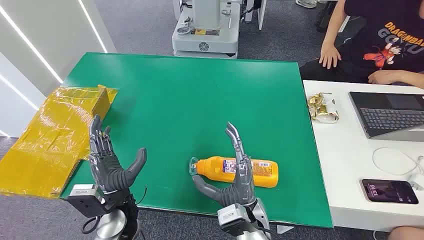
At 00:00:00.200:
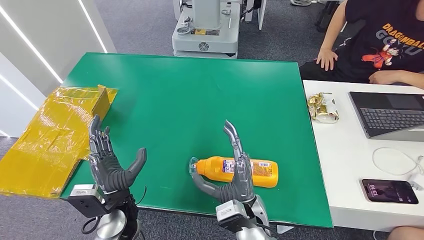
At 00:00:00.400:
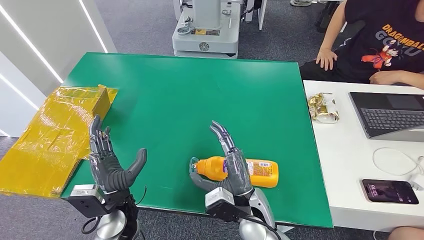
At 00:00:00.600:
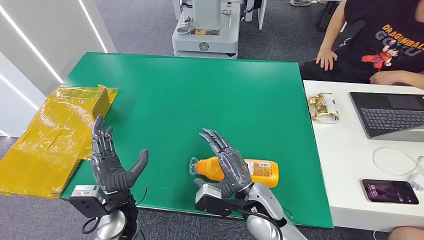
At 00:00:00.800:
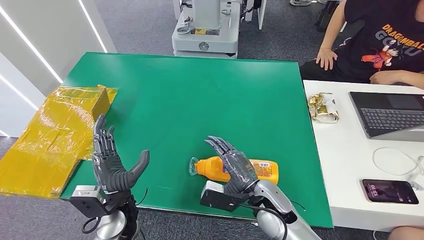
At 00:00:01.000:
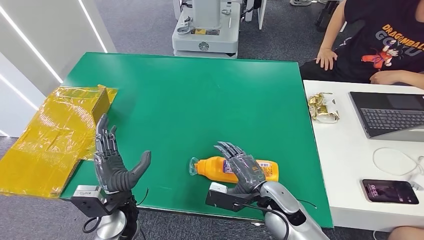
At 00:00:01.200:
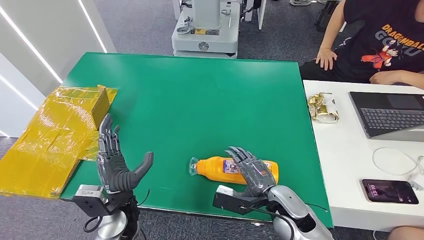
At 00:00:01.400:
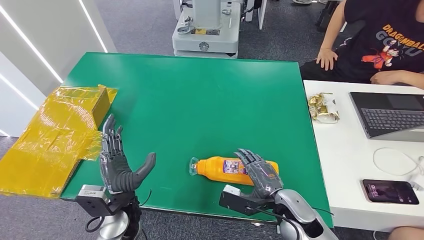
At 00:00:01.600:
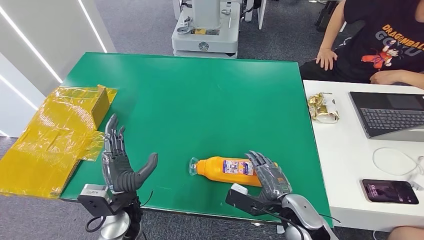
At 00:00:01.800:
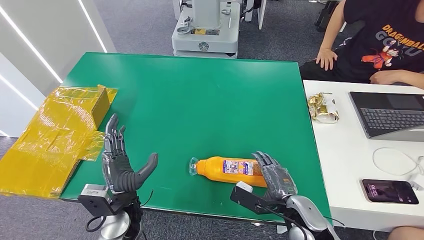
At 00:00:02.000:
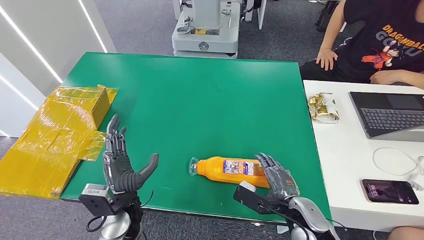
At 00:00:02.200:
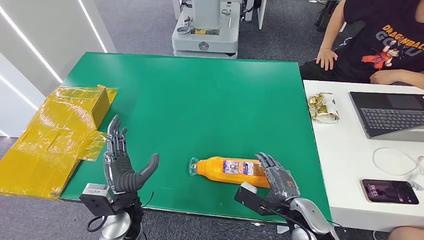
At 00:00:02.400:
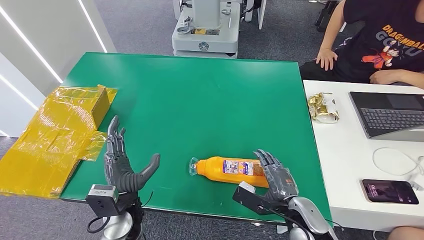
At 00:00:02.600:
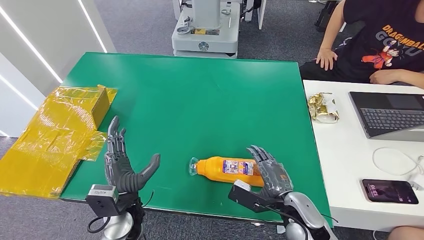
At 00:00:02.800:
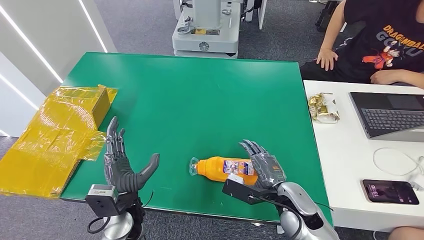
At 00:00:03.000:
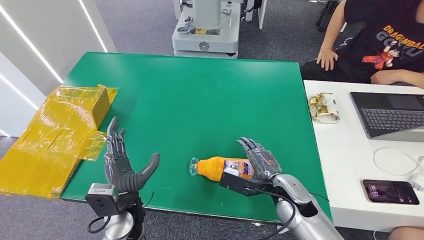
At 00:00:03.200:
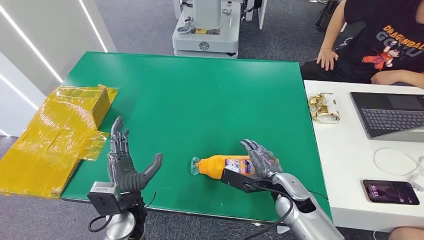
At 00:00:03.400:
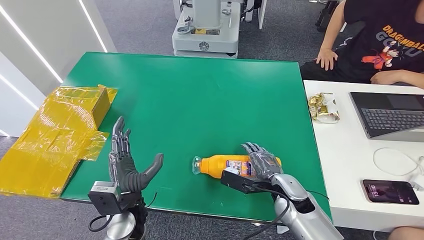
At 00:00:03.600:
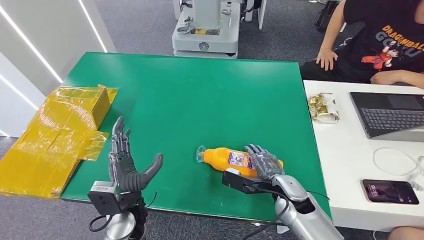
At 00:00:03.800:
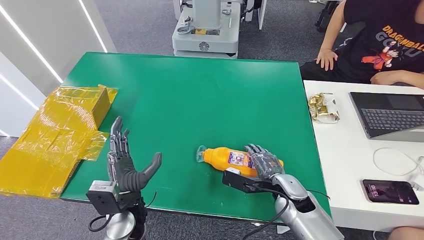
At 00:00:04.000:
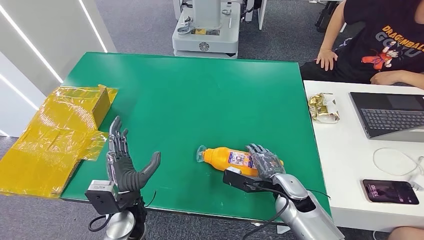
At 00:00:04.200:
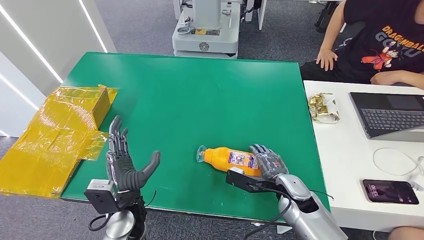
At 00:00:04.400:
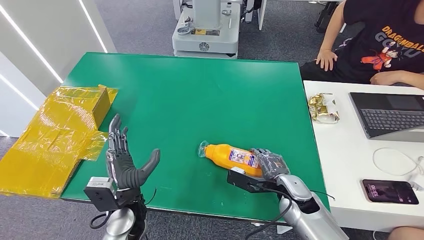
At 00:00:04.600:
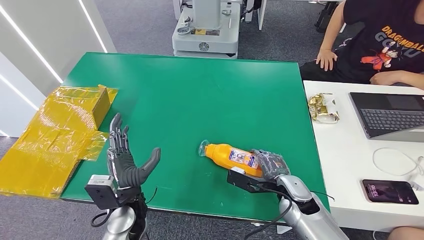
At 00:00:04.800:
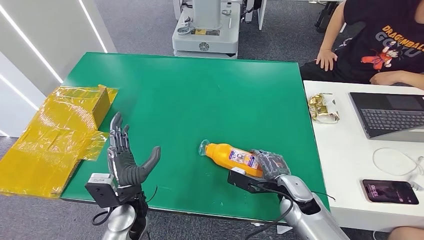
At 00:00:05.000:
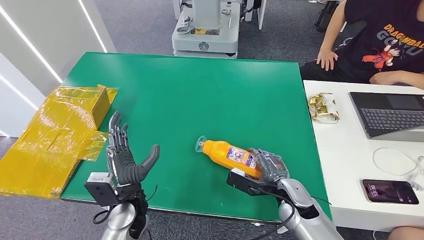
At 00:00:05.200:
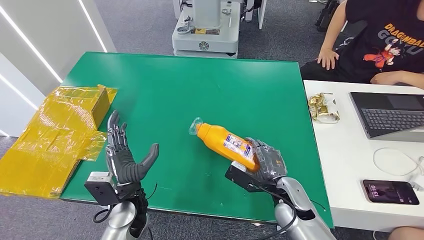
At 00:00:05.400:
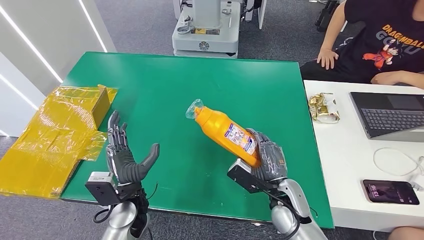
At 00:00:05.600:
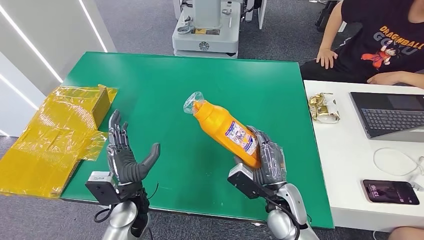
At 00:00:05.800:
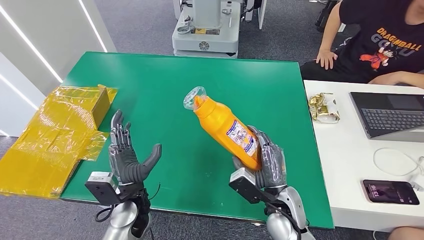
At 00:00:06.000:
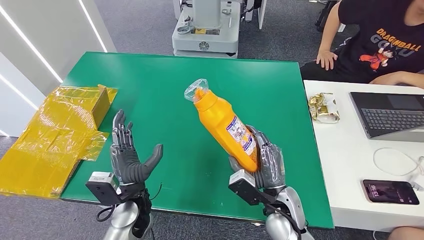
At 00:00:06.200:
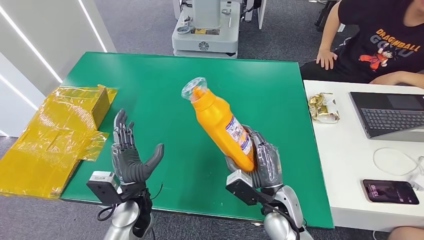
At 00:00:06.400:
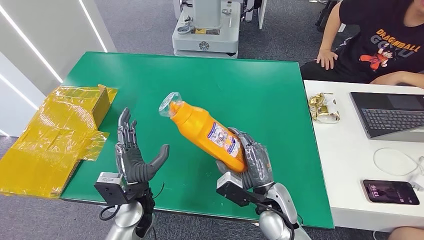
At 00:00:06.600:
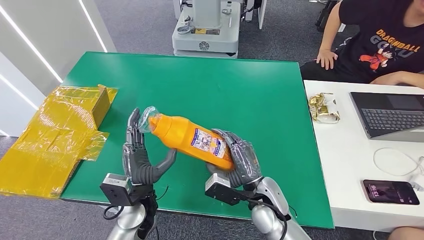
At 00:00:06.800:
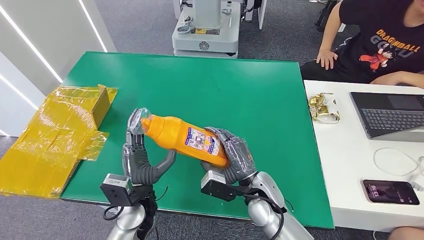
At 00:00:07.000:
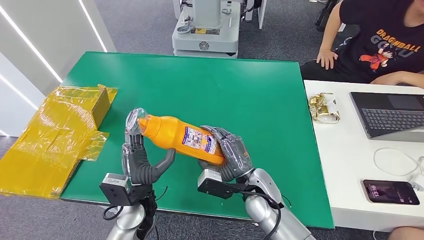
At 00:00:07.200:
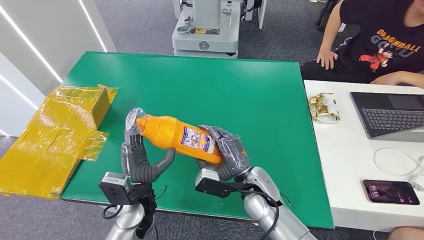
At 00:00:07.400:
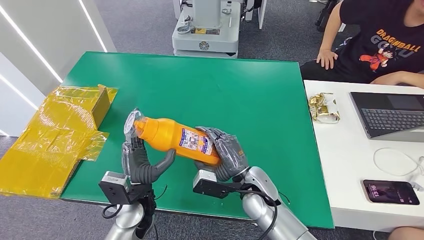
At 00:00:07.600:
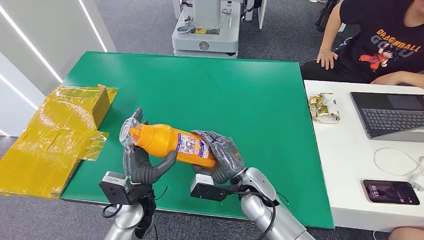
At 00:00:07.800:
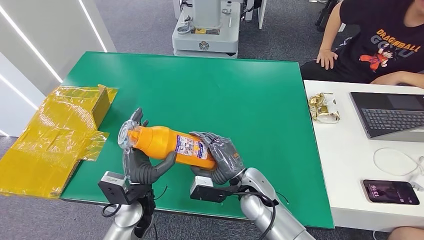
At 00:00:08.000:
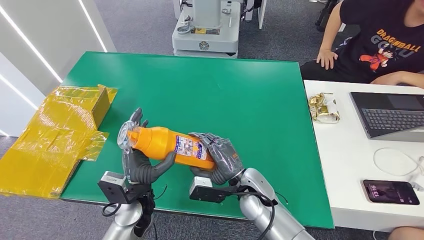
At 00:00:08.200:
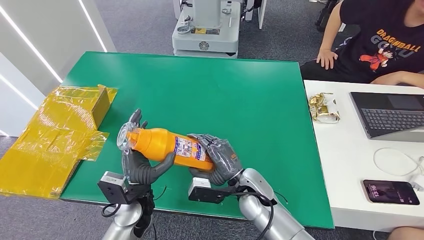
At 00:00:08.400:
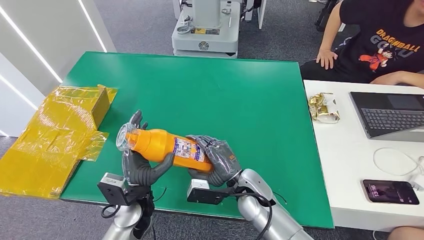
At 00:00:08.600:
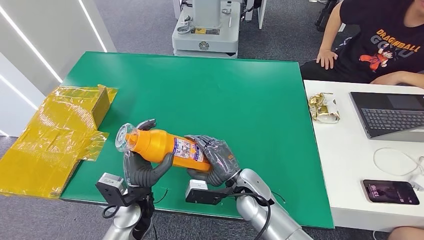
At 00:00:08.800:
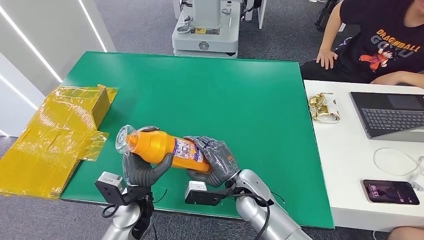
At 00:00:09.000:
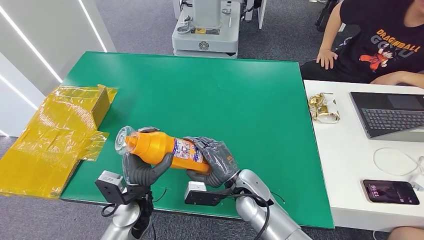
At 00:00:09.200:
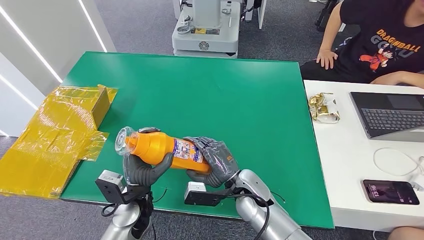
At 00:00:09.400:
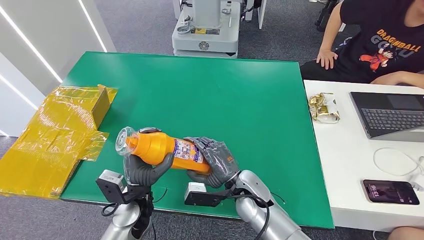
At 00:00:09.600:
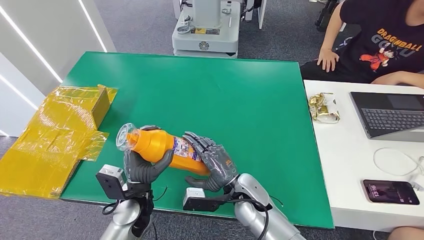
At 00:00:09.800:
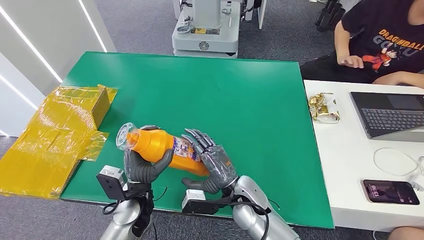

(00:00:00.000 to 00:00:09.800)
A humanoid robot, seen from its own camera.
Step, 00:00:00.000 - 00:00:06.200: Pick up the bottle from the table.
00:00:01.400 - 00:00:04.200: The hands make only small movements.
00:00:04.200 - 00:00:05.600: The right hand ends up about 5 cm from where it was.
00:00:05.600 - 00:00:07.000: The right hand heads to the left, covering about 5 cm.
00:00:07.000 - 00:00:09.800: The hands move only a little.

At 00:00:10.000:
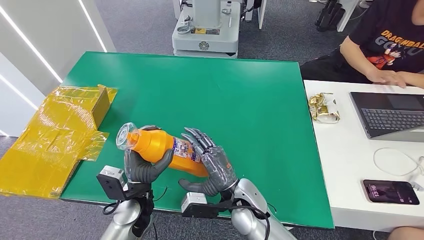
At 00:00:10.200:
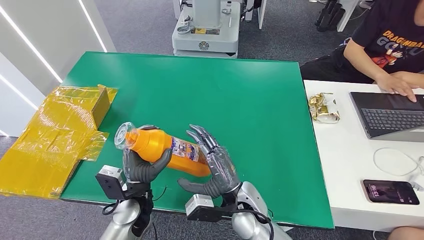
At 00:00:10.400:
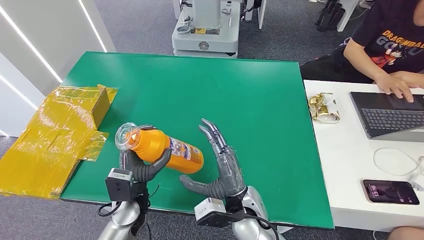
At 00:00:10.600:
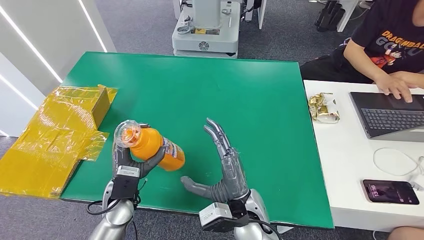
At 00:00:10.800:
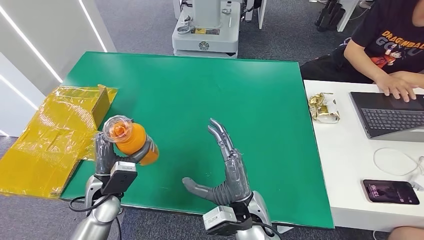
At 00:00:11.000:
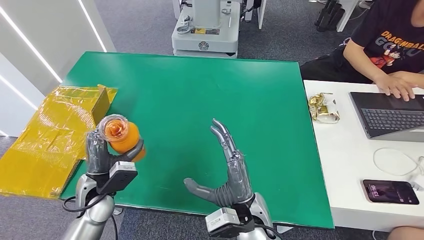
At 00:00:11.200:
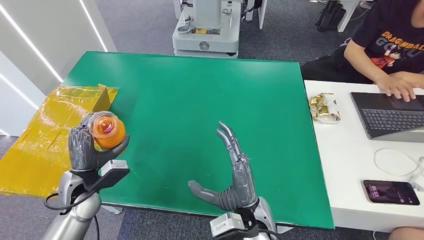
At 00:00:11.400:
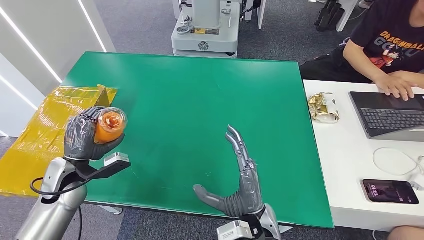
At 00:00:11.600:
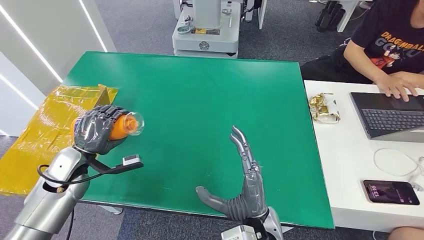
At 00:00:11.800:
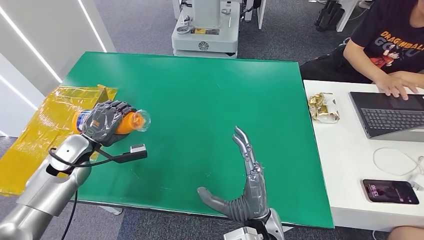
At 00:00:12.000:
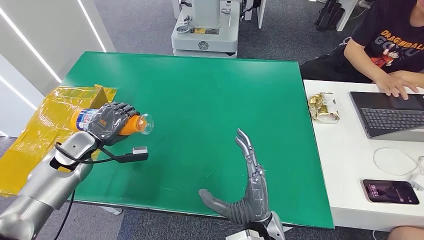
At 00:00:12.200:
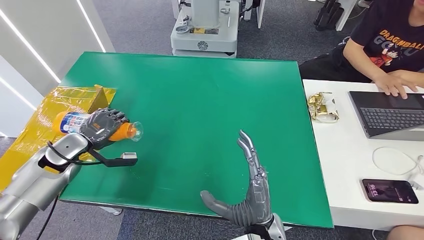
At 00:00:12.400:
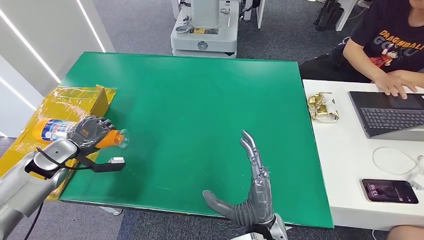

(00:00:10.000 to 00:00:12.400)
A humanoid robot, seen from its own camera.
Step, 00:00:10.000 - 00:00:12.400: Turn the bottle to the front side.
00:00:10.000 - 00:00:11.200: The left hand travels to the left by about 15 cm. The right hand changes place by roughly 5 cm.
00:00:11.200 - 00:00:12.400: The left hand heads to the left and forward, covering roughly 15 cm.

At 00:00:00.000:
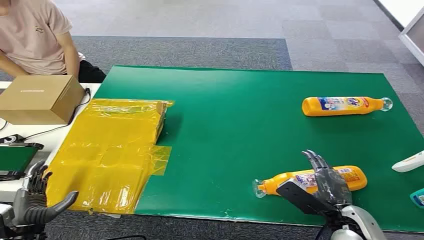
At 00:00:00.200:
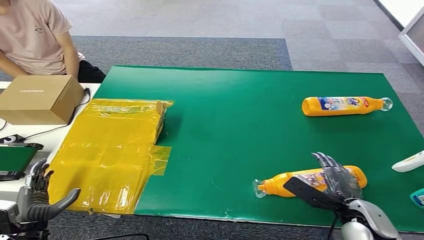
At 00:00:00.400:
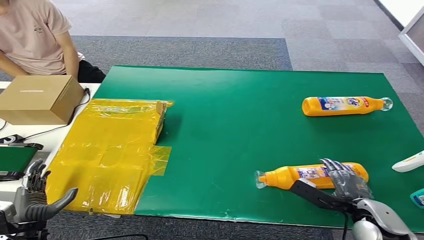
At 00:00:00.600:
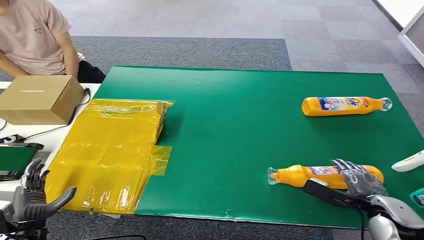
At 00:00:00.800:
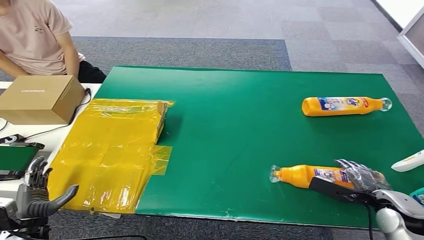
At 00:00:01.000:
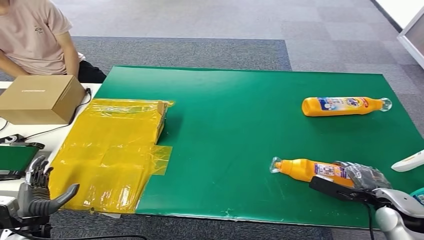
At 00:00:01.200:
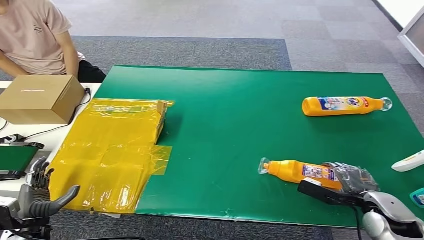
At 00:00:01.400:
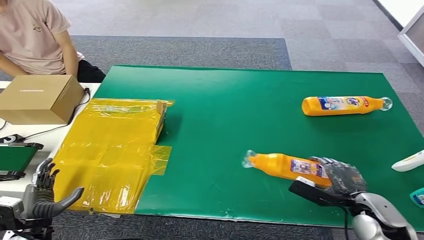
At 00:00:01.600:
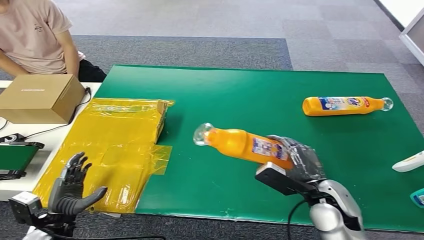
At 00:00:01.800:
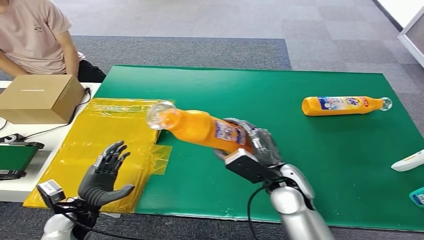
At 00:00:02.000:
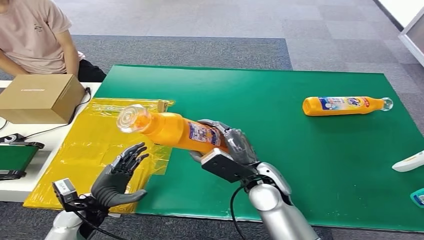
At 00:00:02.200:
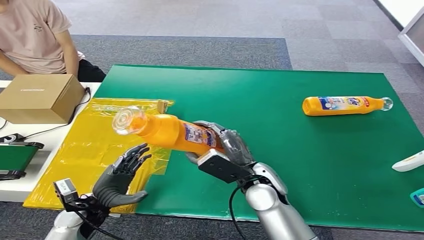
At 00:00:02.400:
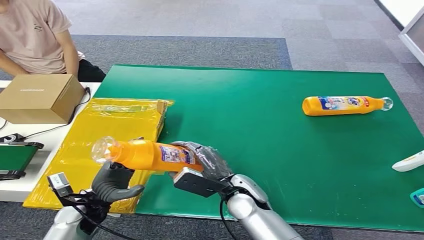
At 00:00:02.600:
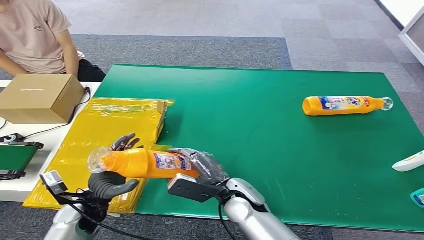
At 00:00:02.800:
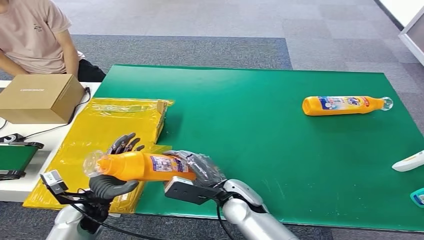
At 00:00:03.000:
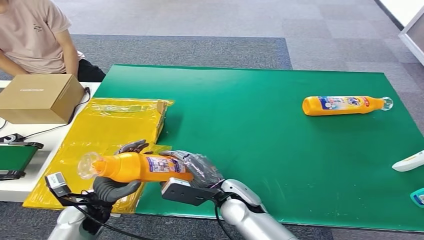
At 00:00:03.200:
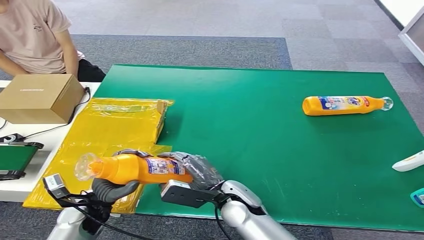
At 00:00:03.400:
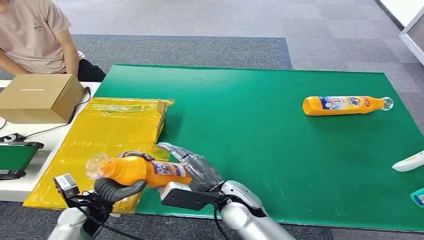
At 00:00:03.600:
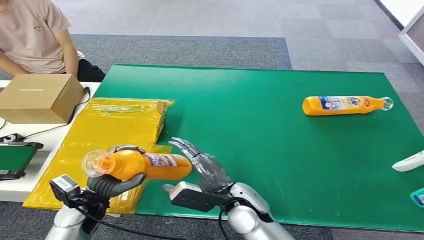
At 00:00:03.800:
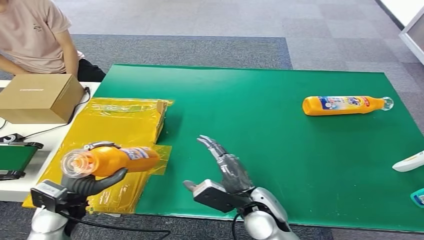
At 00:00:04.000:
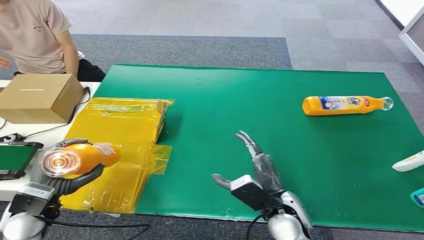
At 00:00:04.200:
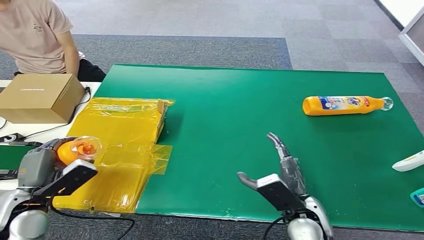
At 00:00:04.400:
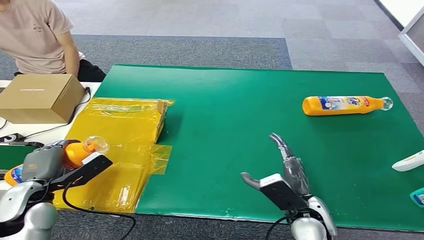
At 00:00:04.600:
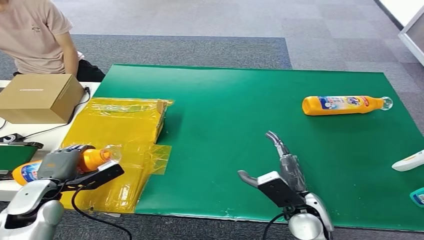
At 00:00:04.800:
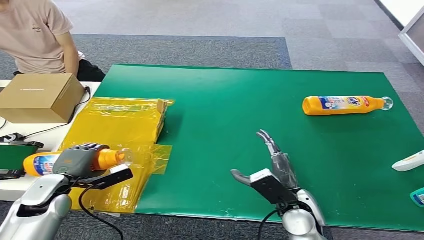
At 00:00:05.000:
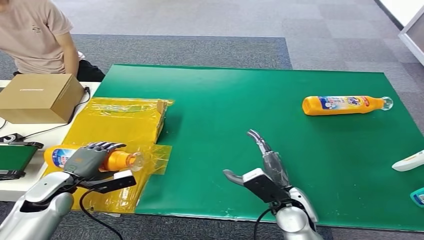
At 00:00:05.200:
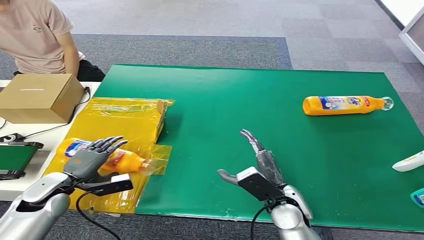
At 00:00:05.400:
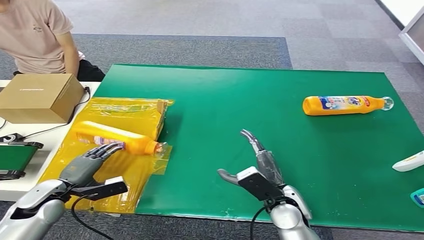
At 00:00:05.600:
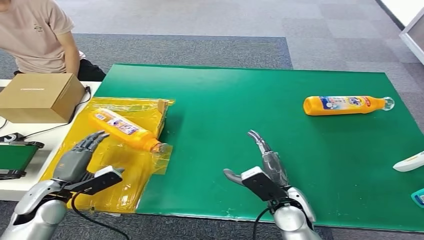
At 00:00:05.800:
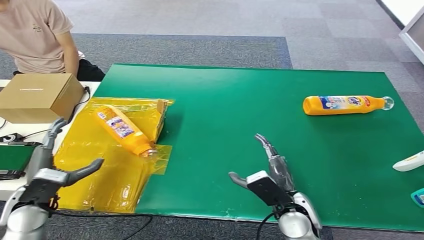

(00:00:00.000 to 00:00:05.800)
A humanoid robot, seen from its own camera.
Step, 00:00:00.000 - 00:00:01.400: Pick up the bottle from the table.
Step, 00:00:01.600 - 00:00:05.800: Turn the bottle to the front side.
00:00:02.800 - 00:00:04.400: The right hand heads to the right, covering roughly 15 cm. The left hand moves to the left and upward, about 10 cm.
00:00:04.400 - 00:00:05.800: The left hand moves some 10 cm downward and comes back.
